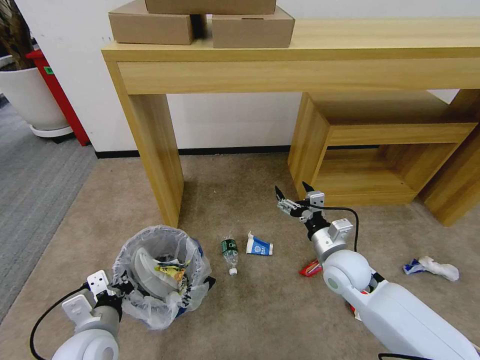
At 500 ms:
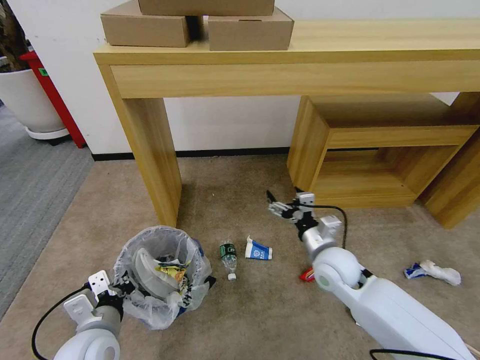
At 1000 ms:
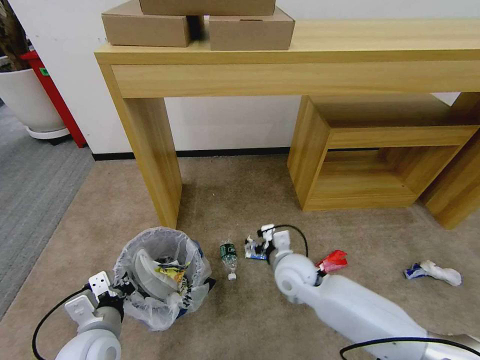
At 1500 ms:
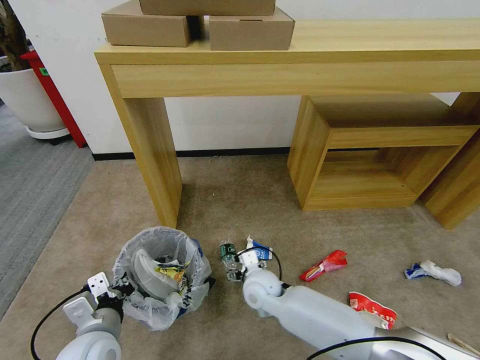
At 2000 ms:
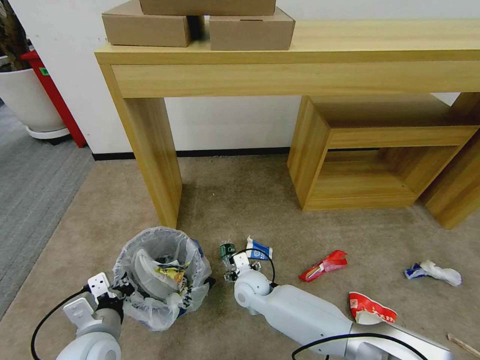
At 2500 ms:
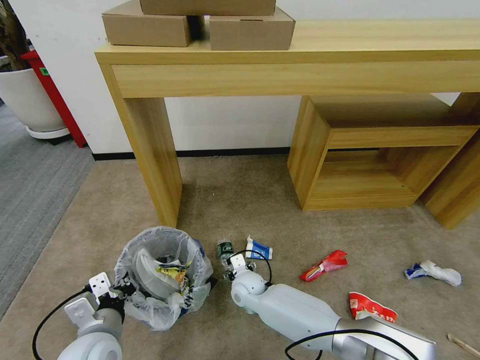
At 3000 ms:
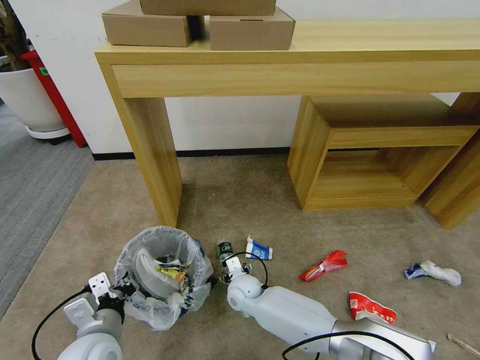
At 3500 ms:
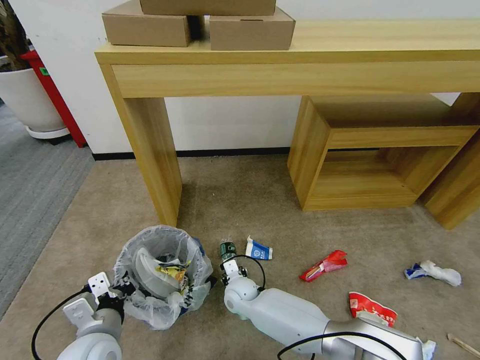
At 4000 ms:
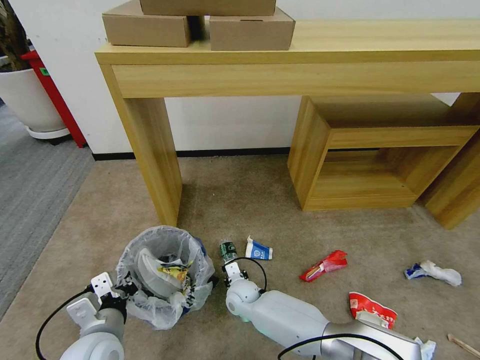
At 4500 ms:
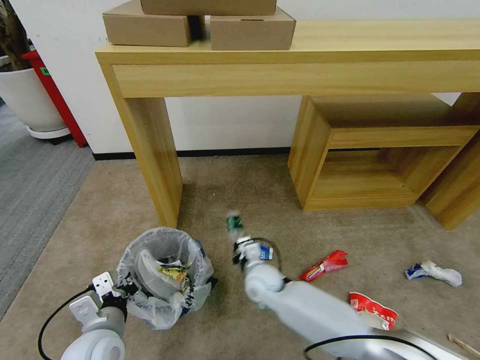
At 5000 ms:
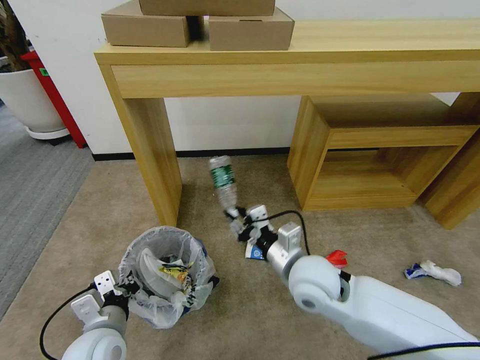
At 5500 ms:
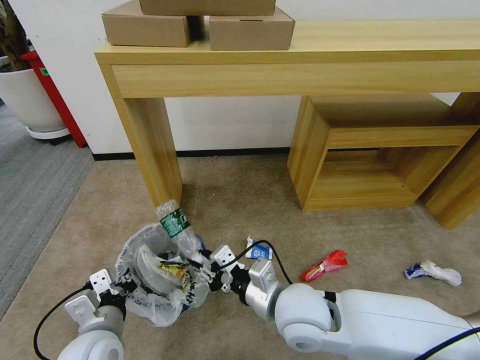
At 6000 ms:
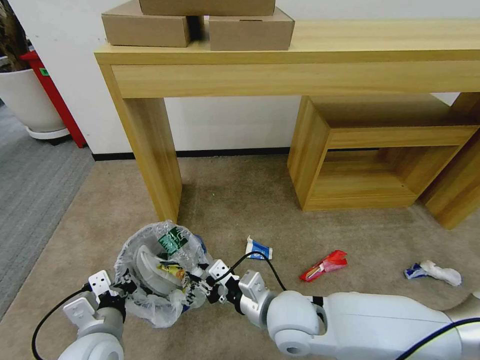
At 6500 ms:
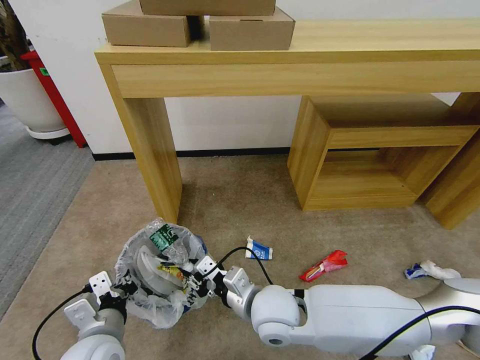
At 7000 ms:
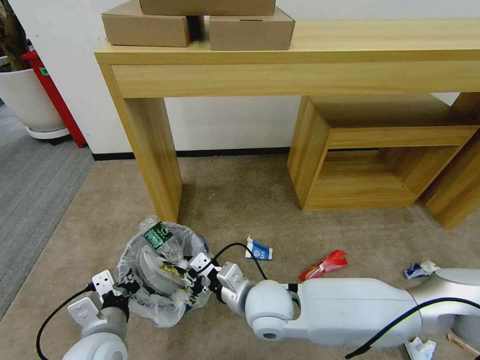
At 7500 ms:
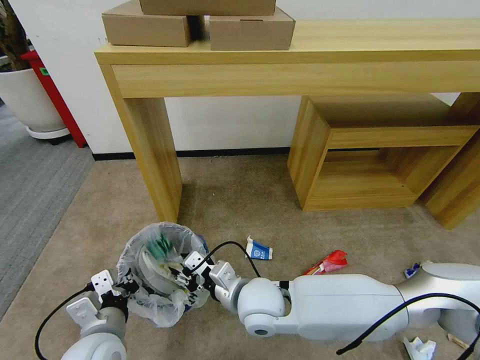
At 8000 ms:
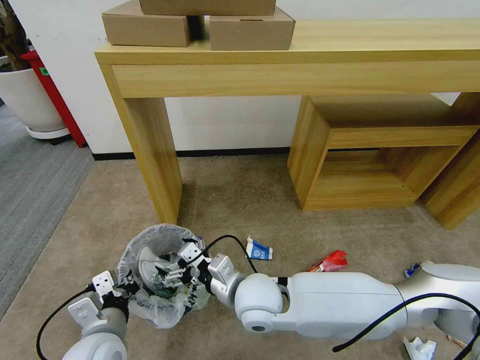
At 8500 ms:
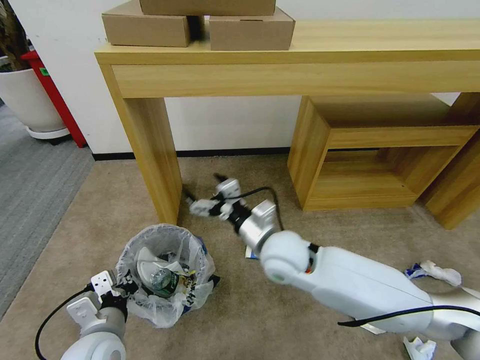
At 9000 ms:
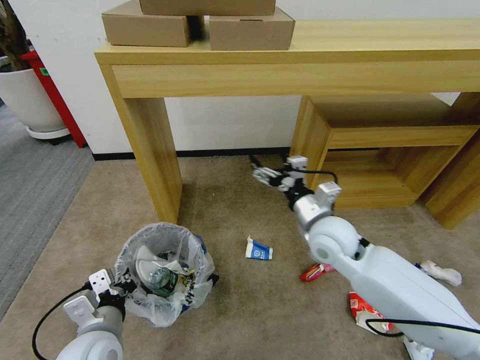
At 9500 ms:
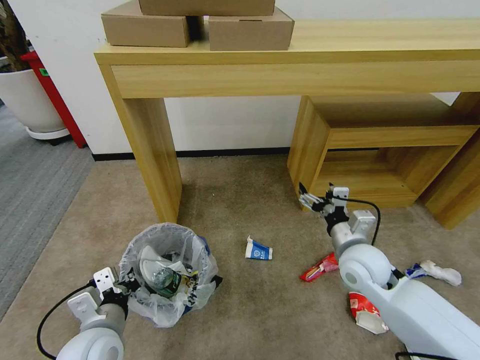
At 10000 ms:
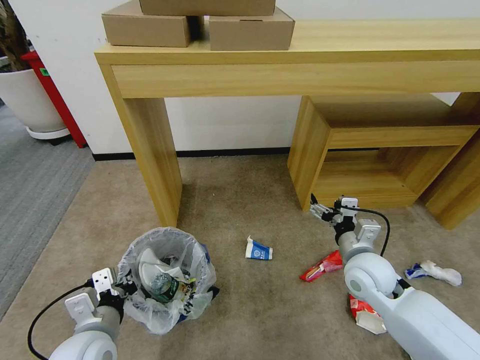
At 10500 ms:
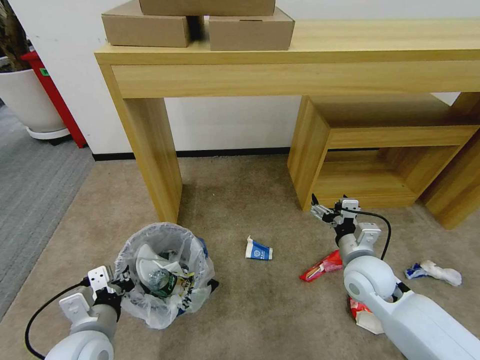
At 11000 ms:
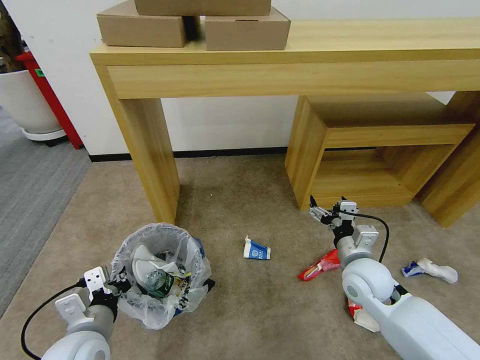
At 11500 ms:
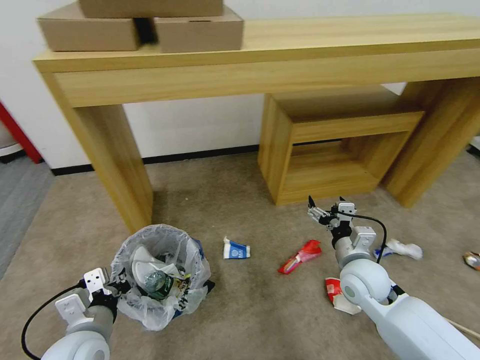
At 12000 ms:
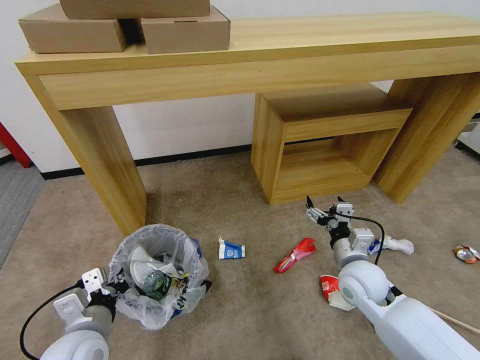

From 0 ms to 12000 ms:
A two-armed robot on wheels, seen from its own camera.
Task of the whole recording: Pick up the trash bin and place the garbage on the floor into it.
From 0 ms to 2000 ms: The right gripper shifts some 25 cm to the left and downward.
From 2000 ms to 4000 ms: The right gripper travels downward by about 5 cm, and closes up.
From 4000 ms to 6000 ms: The right gripper shifts some 25 cm upward and backward.
From 6000 ms to 8000 ms: The right gripper heads to the left, covering approximately 5 cm, and opens up.
From 8000 ms to 10000 ms: The right gripper is displaced to the right by roughly 25 cm.

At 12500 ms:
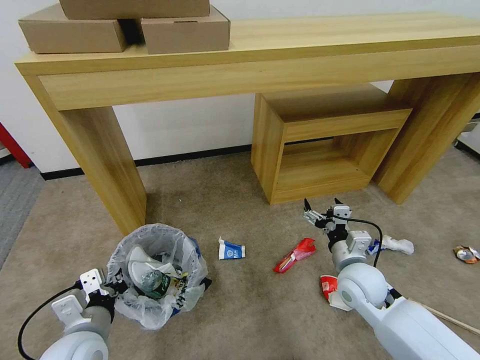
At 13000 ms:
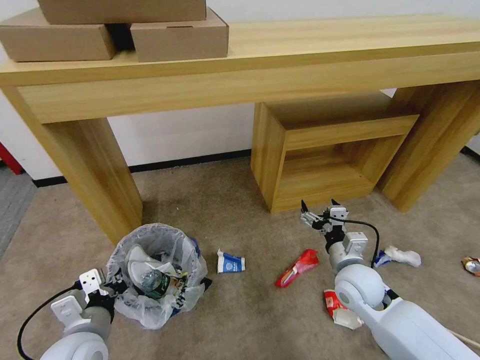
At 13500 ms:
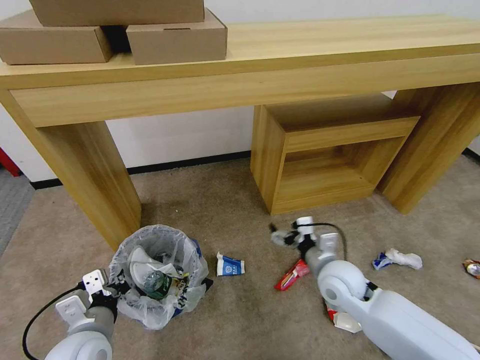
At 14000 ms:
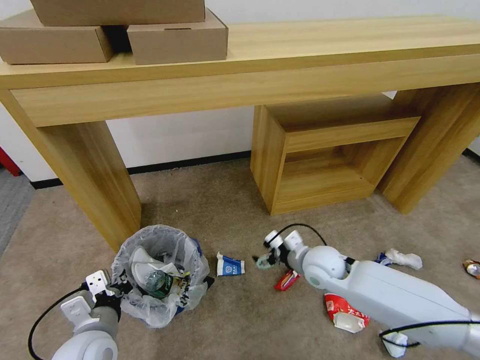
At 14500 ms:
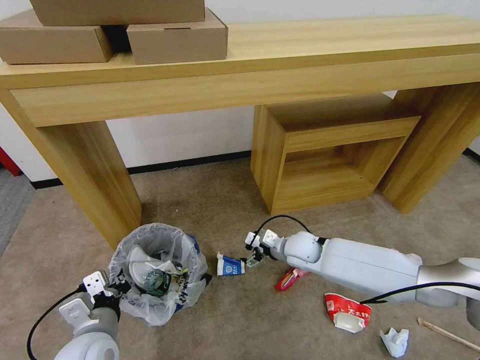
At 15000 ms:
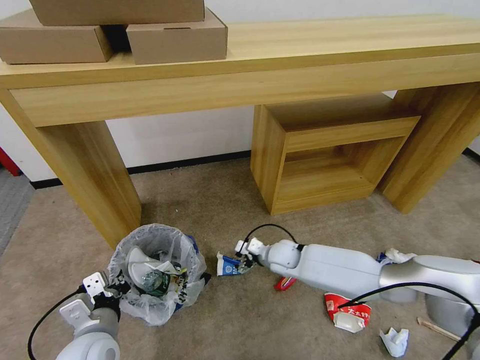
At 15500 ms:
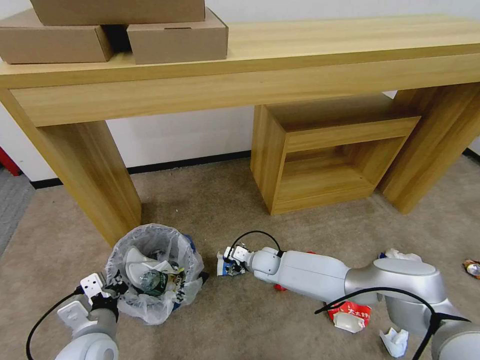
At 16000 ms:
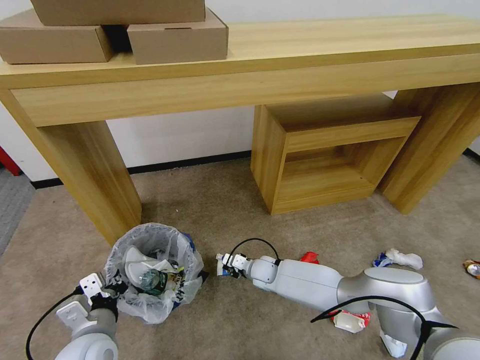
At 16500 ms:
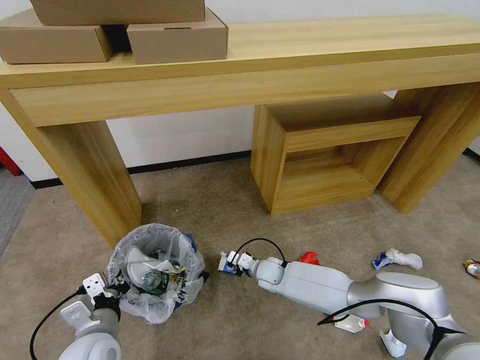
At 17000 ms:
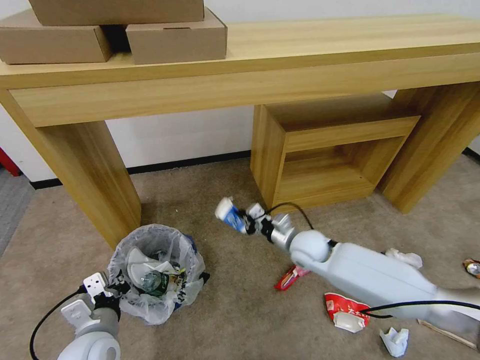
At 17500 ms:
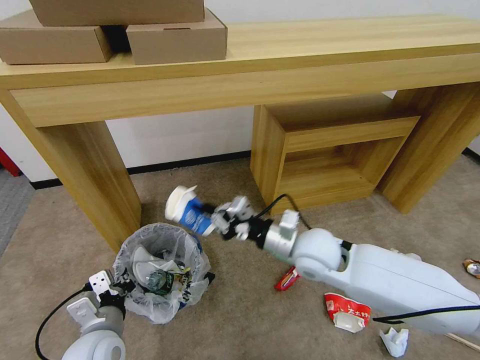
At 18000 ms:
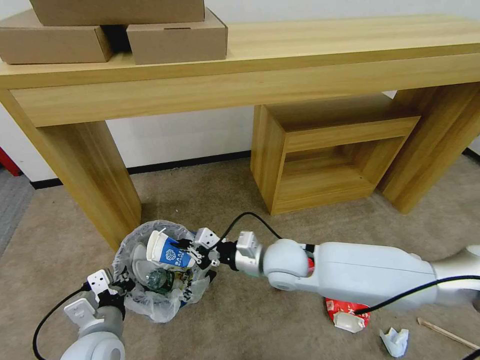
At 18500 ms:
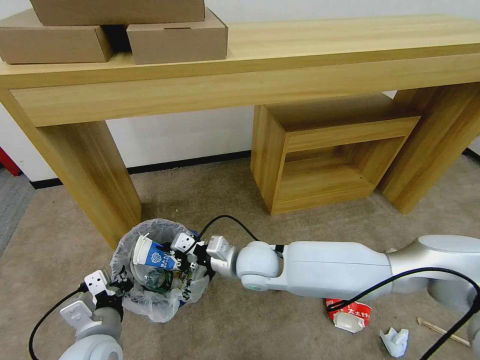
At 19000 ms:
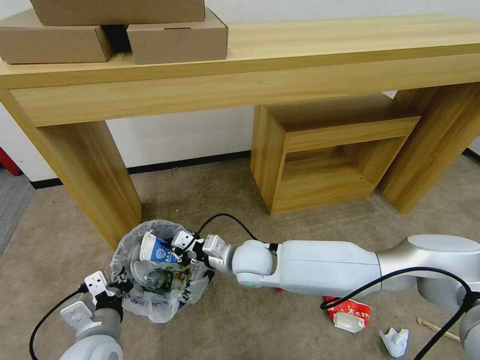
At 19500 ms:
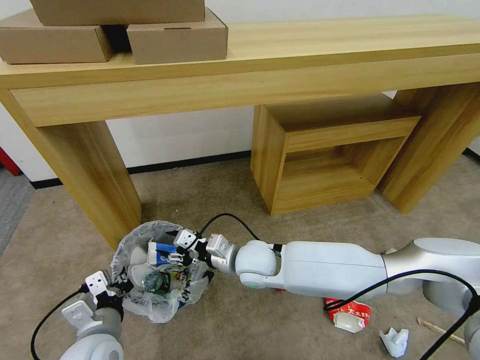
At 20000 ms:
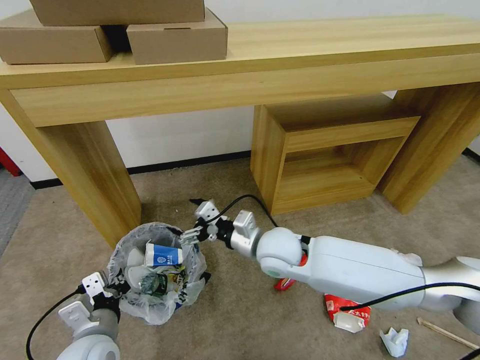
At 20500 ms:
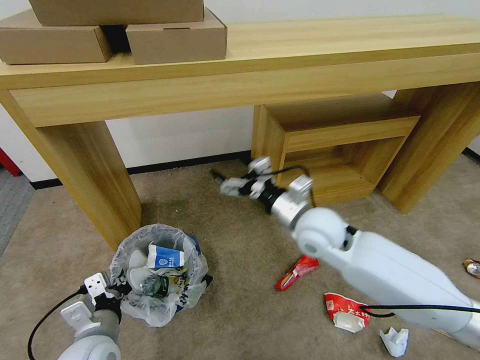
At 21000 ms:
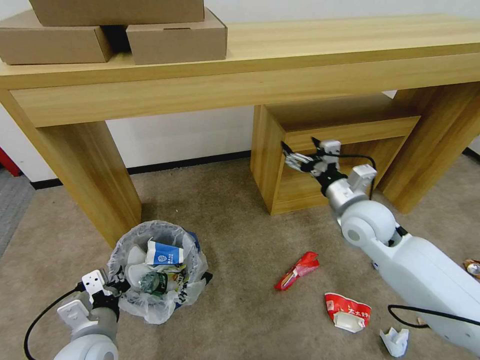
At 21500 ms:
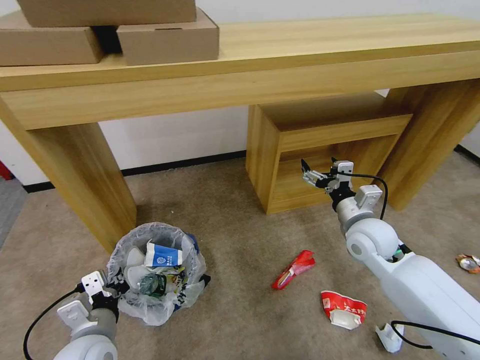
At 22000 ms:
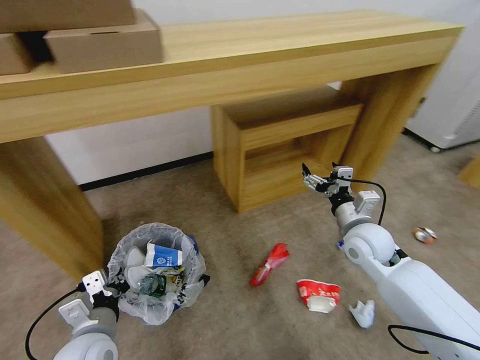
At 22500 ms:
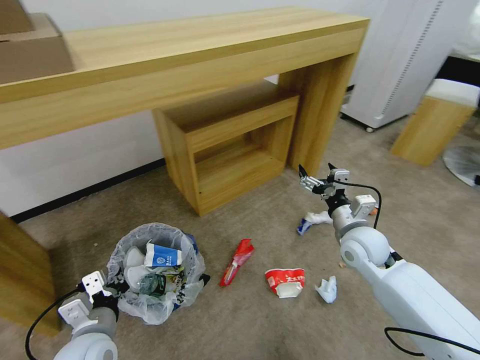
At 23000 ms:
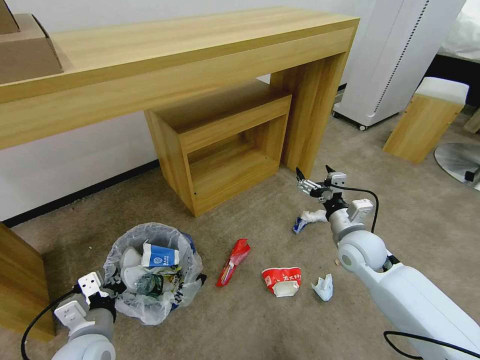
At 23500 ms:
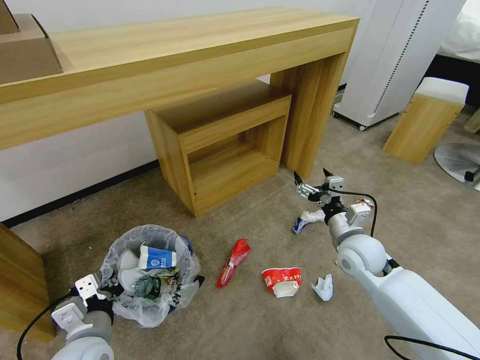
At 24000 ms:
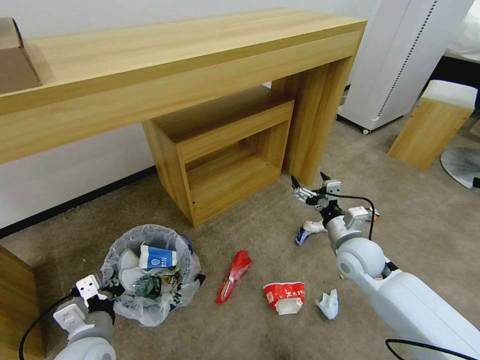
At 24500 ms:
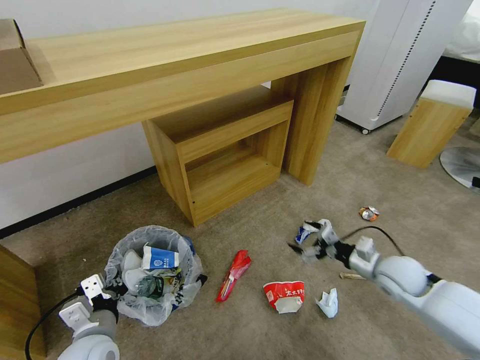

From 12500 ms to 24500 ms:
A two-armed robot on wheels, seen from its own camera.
Task of the whole recording: Pick up the trash bin and place the garbage on the floor into it.
From 12500 ms to 14500 ms: The right gripper moves forward and to the left, some 15 cm.
From 14500 ms to 16500 ms: The right gripper moves downward and to the left, approximately 15 cm, and closes.
From 16500 ms to 18500 ms: The right gripper is displaced upward by some 20 cm.
From 18500 ms to 20500 ms: The right gripper goes some 15 cm to the right and upward, and opens.
From 20500 ms to 22500 ms: The right gripper moves to the right and downward, some 15 cm.
From 22500 ms to 24500 ms: The right gripper shifts approximately 10 cm to the right and downward.

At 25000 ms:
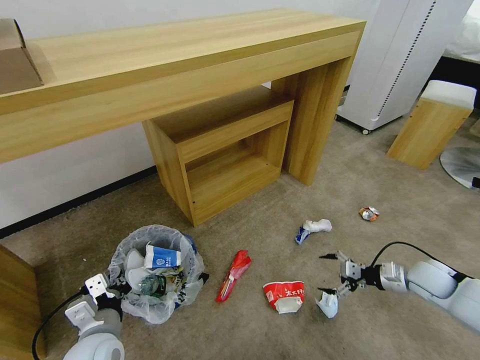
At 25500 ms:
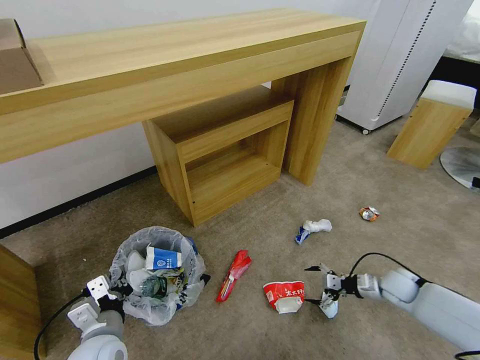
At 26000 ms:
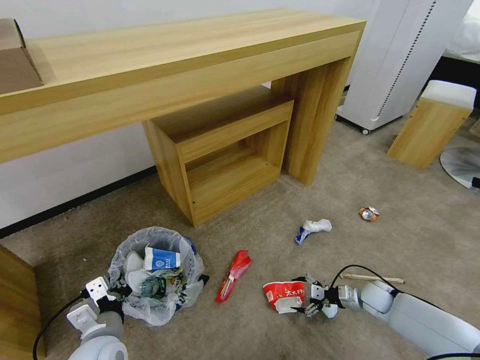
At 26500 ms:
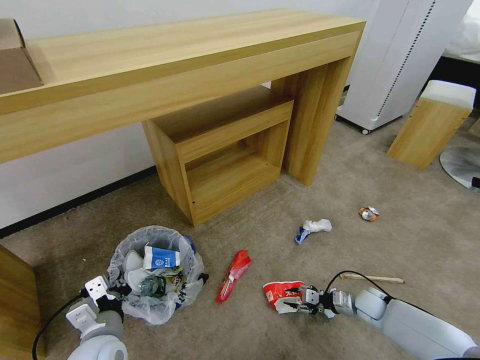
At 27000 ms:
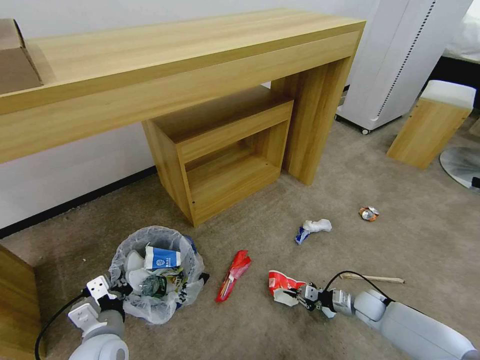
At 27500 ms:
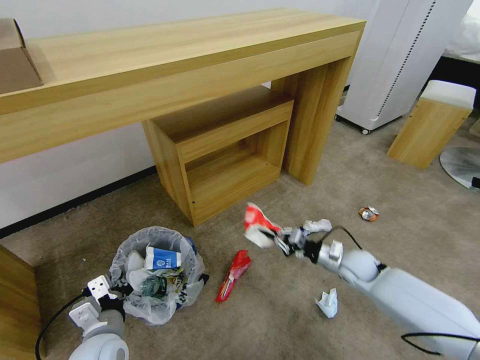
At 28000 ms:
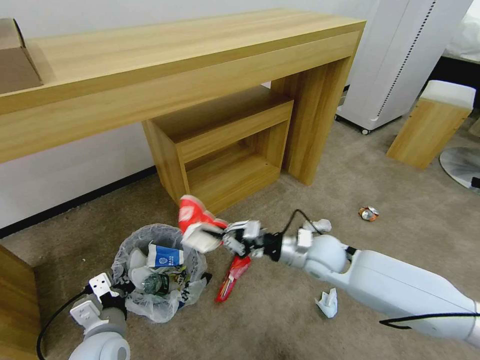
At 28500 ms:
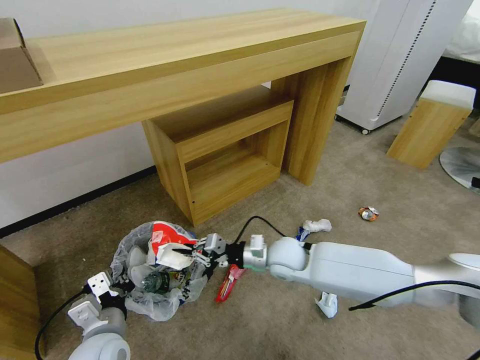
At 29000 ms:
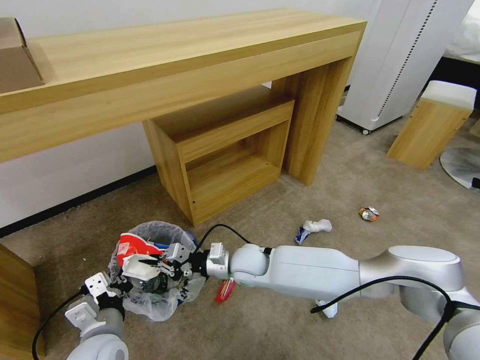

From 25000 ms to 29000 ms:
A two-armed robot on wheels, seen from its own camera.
Task of the whole recording: Pick up the trash bin and place the garbage on the floor into it.
From 25000 ms to 27000 ms: The right gripper shifts roughly 20 cm downward and to the left, and closes.
From 27000 ms to 29000 ms: The right gripper moves to the left and upward, approximately 40 cm.
